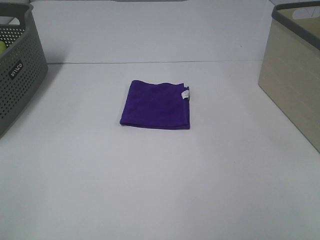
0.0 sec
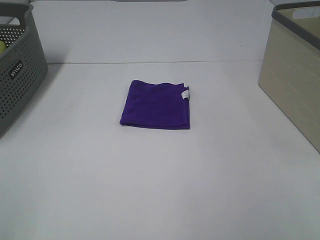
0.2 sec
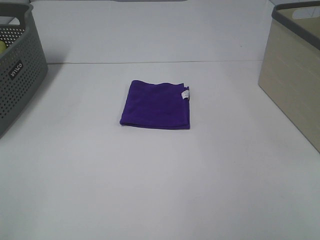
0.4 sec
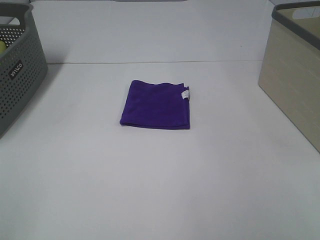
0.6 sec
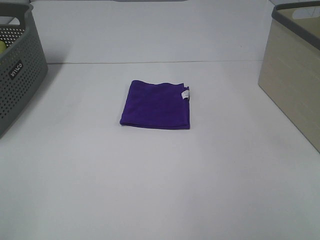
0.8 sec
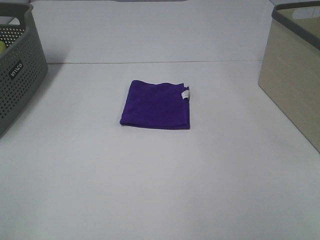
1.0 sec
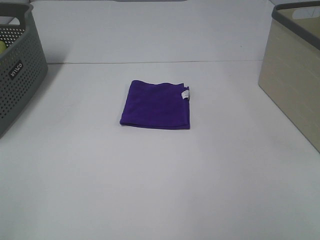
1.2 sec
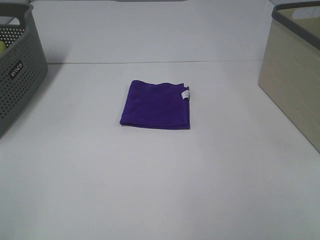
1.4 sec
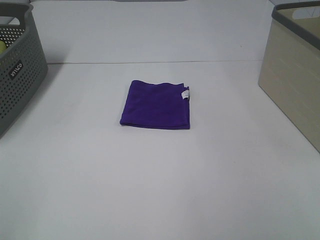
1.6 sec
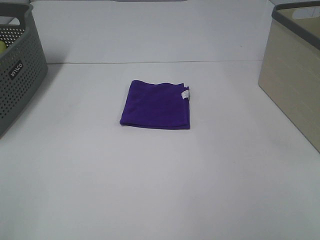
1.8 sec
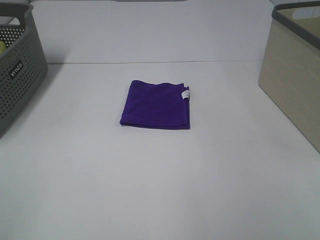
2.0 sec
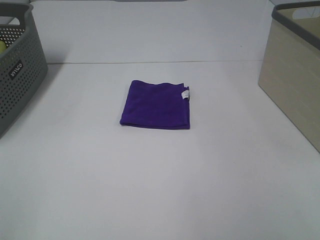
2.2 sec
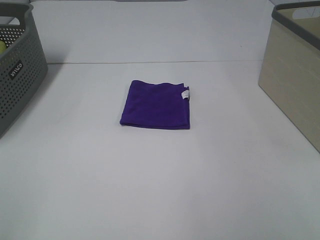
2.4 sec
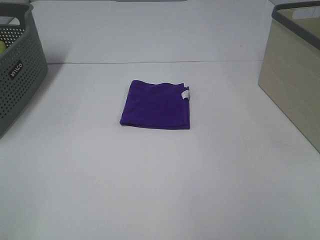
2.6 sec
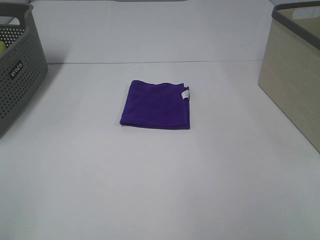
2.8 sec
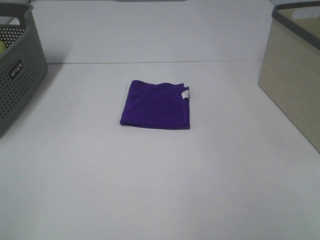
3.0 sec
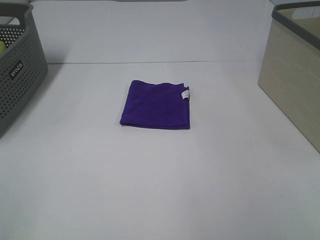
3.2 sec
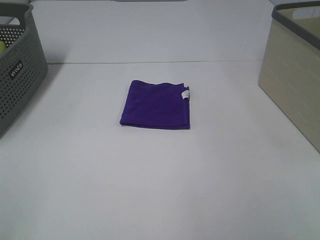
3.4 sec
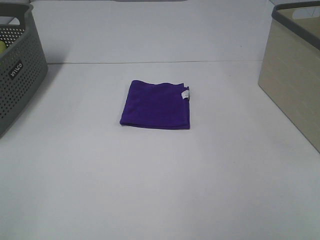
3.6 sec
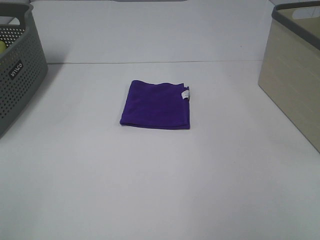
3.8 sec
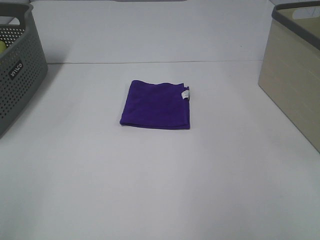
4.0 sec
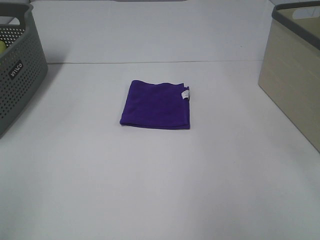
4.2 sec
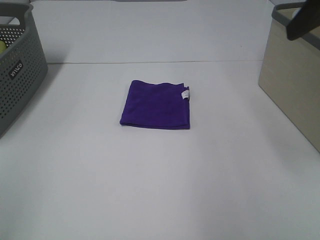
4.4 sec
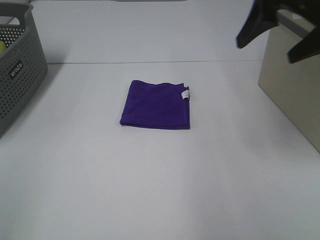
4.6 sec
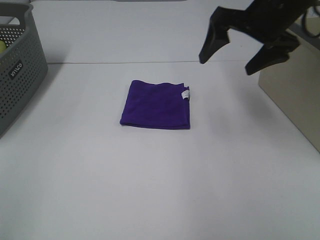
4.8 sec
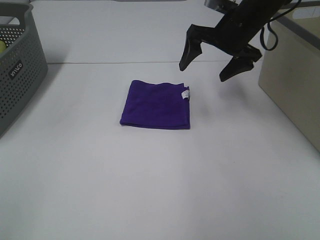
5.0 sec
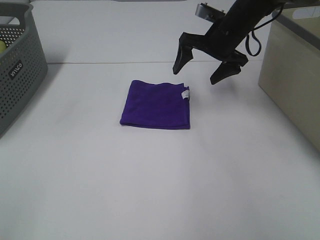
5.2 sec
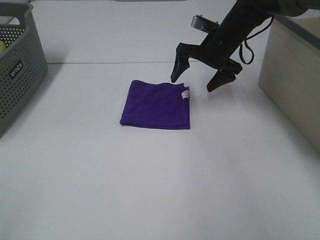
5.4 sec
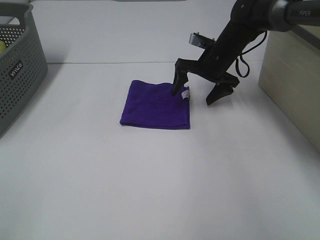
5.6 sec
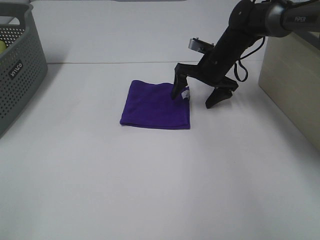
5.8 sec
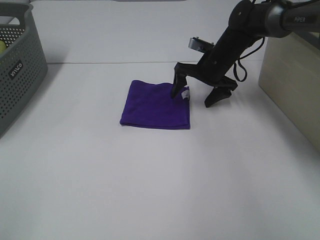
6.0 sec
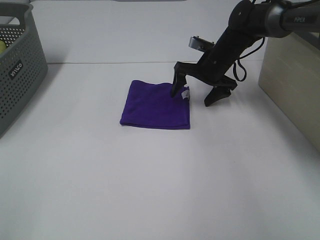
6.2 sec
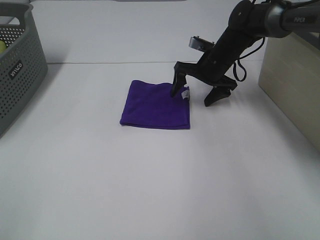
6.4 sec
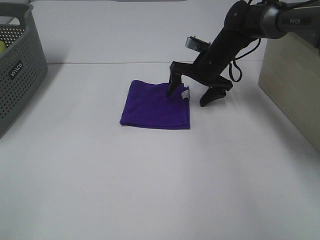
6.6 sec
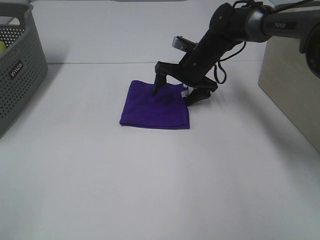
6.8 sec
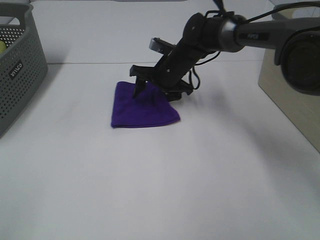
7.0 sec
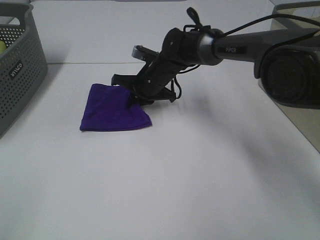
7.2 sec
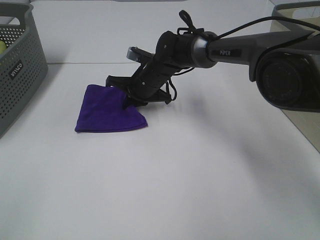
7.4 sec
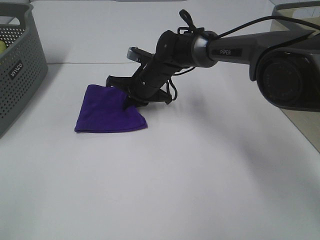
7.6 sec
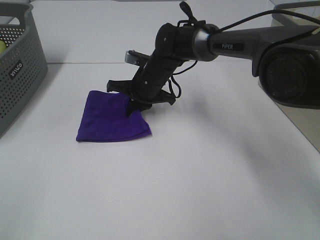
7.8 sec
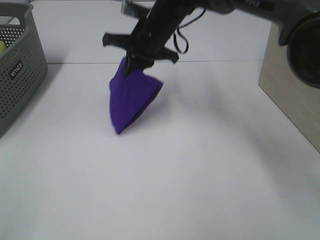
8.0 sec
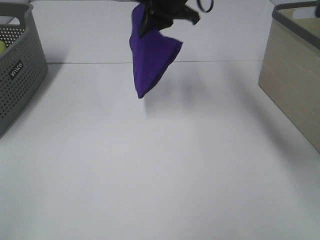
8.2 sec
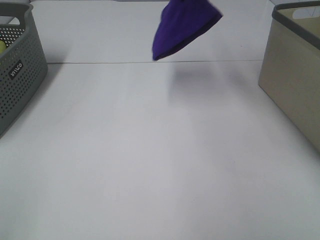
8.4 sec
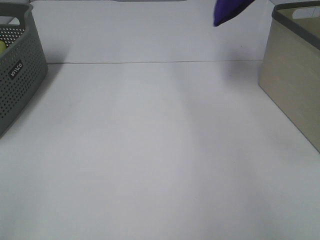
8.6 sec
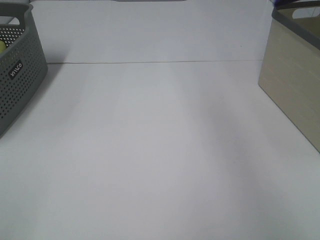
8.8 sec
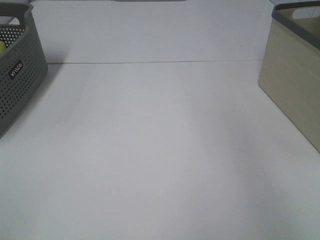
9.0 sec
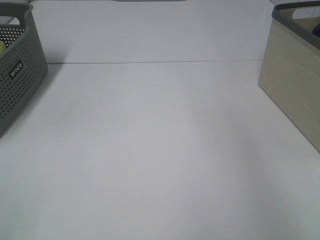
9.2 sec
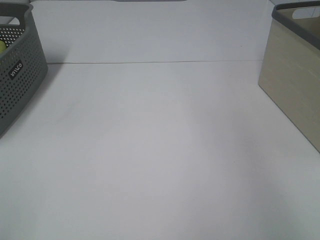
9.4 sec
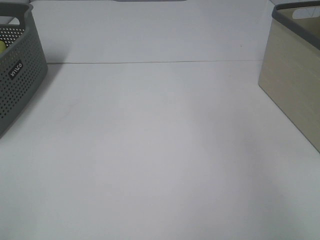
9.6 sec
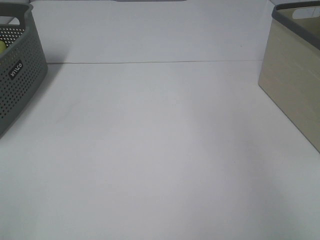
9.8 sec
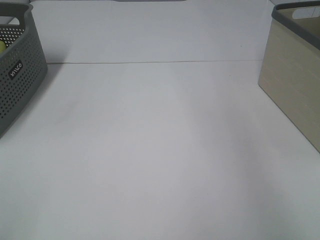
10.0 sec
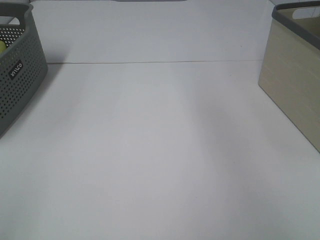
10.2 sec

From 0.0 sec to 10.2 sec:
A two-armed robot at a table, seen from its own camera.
Step, from 0.0 sec to 7.2 sec: Right hand: grab the folded purple towel.
Step, from 7.4 sec to 9.6 sec: Right hand: place the purple towel in right basket.
From 0.0 sec to 3.0 sec: Both grippers stay put.
From 3.0 sec to 4.4 sec: The right gripper goes some 25 cm forward.
From 4.4 sec to 5.8 sec: The right gripper travels downward, forward and to the left by approximately 35 cm.
From 5.8 sec to 7.2 sec: The right gripper shifts roughly 15 cm to the left, and closes up.
From 7.2 sec to 8.8 sec: The right gripper travels upward and to the right by roughly 50 cm.

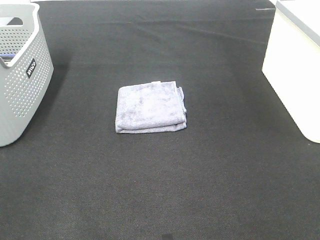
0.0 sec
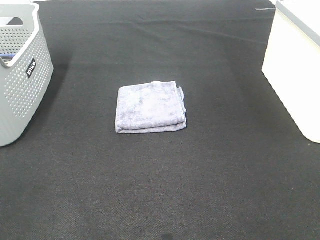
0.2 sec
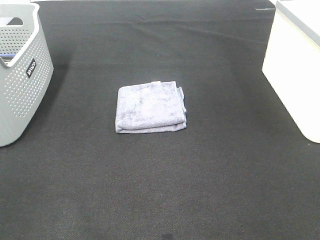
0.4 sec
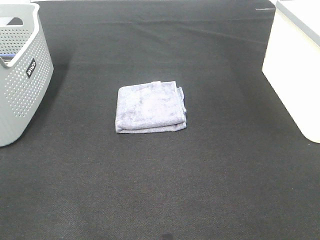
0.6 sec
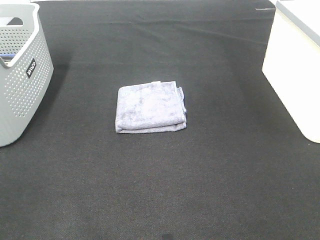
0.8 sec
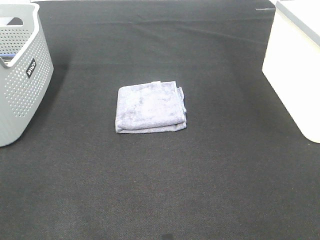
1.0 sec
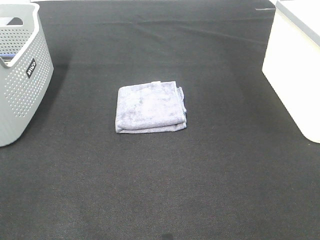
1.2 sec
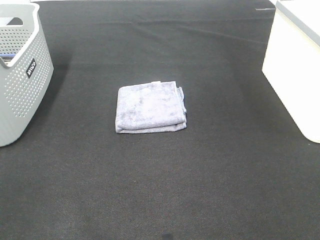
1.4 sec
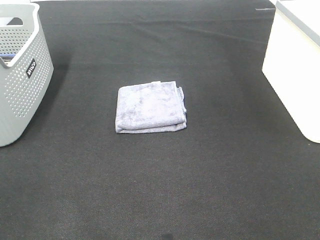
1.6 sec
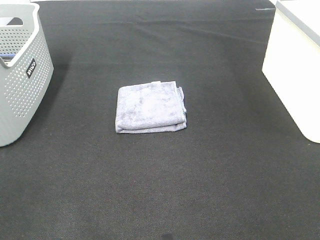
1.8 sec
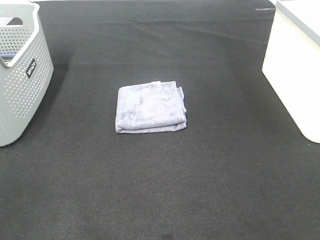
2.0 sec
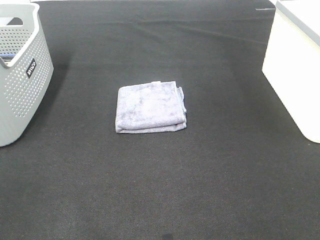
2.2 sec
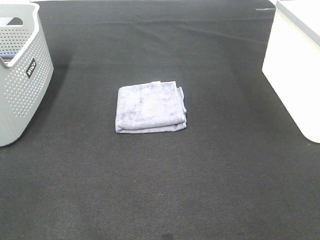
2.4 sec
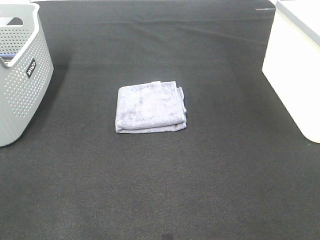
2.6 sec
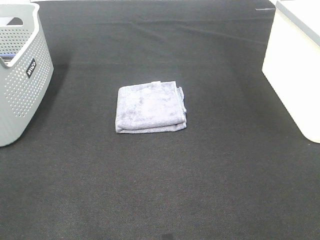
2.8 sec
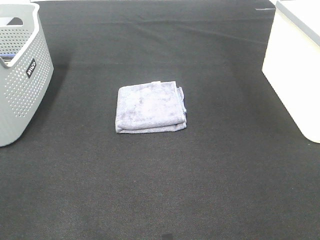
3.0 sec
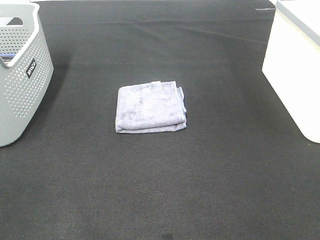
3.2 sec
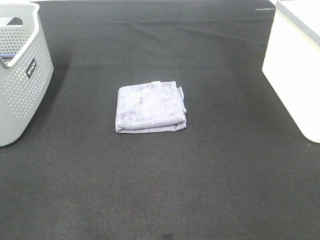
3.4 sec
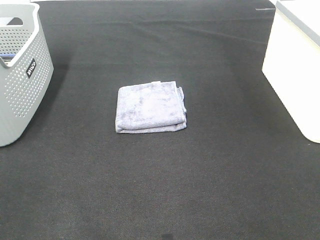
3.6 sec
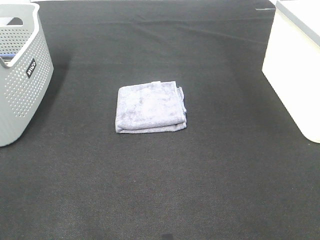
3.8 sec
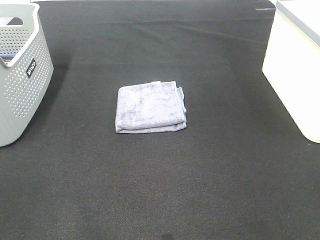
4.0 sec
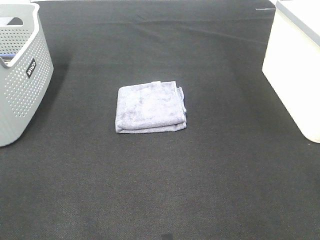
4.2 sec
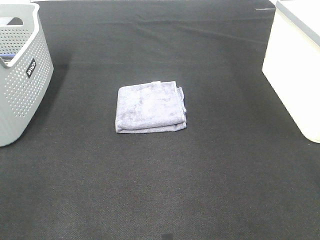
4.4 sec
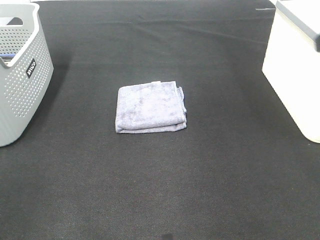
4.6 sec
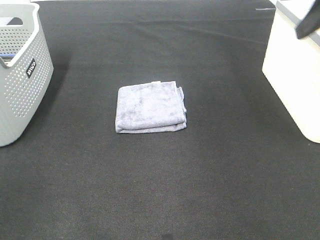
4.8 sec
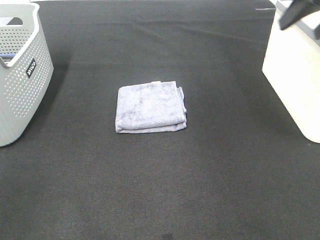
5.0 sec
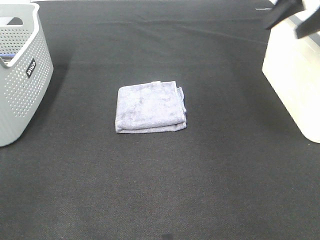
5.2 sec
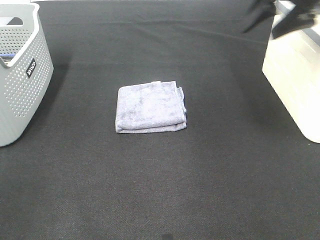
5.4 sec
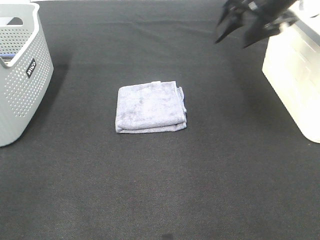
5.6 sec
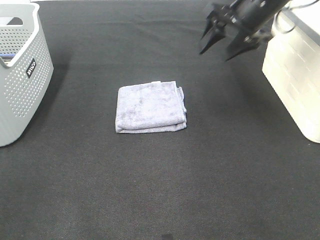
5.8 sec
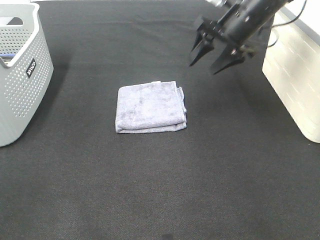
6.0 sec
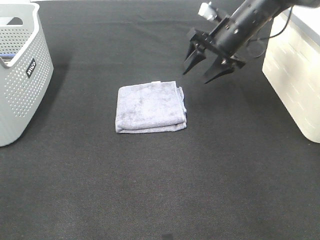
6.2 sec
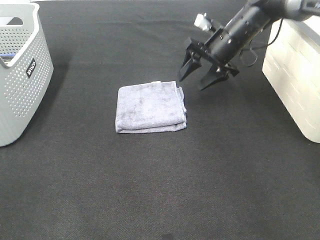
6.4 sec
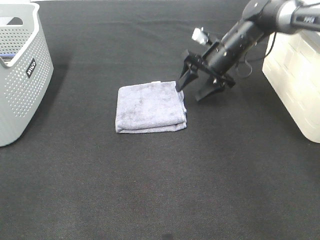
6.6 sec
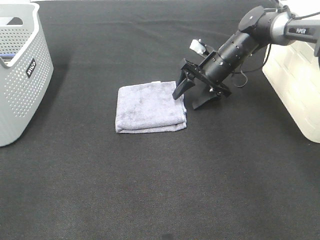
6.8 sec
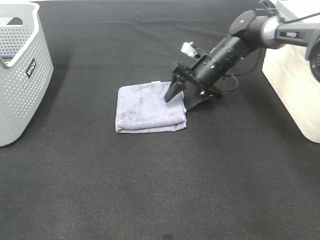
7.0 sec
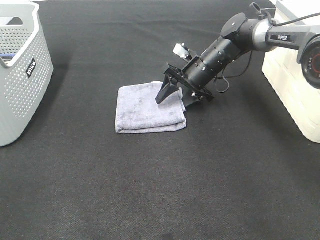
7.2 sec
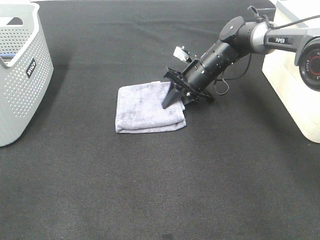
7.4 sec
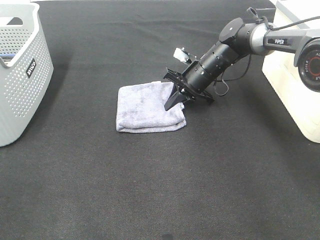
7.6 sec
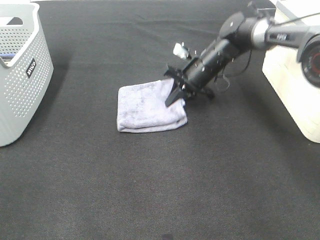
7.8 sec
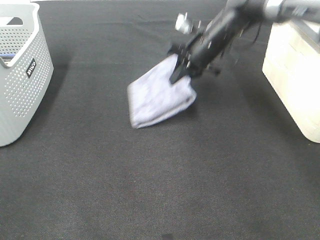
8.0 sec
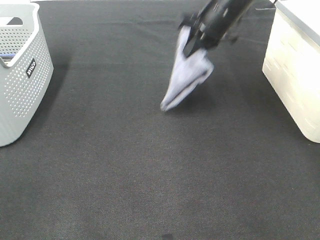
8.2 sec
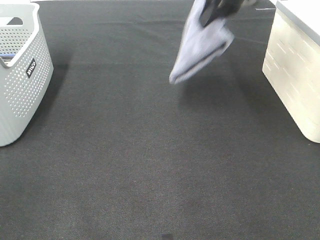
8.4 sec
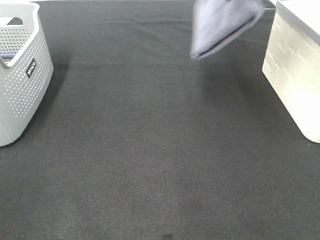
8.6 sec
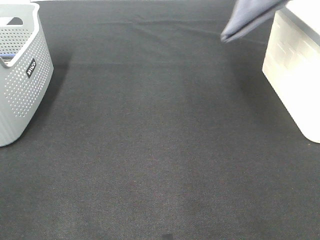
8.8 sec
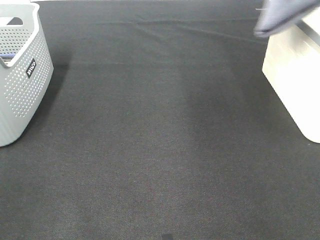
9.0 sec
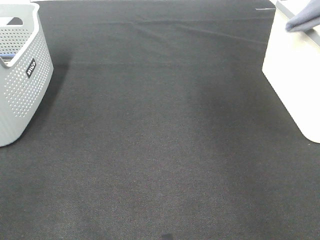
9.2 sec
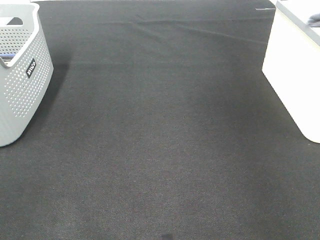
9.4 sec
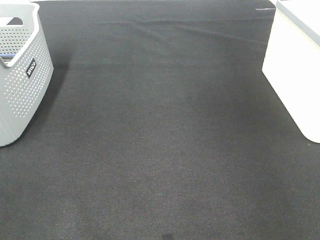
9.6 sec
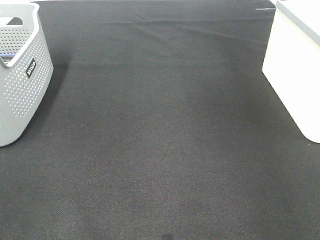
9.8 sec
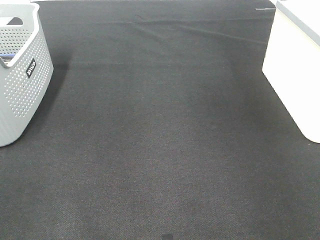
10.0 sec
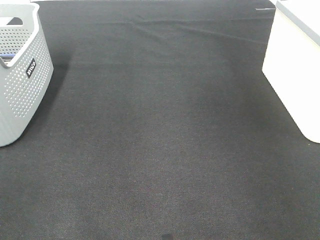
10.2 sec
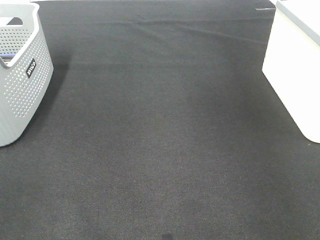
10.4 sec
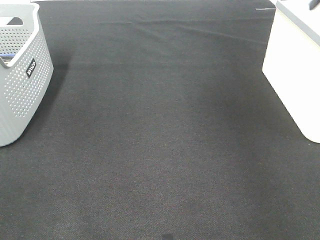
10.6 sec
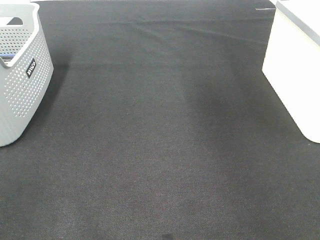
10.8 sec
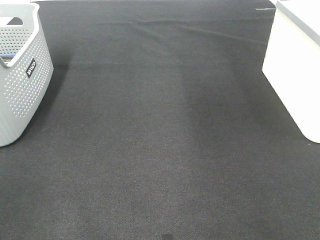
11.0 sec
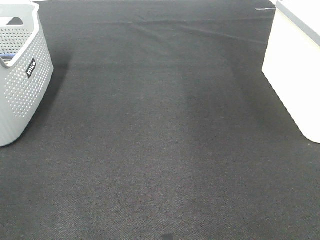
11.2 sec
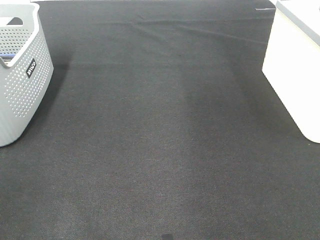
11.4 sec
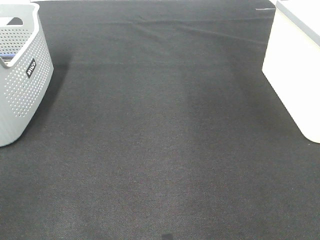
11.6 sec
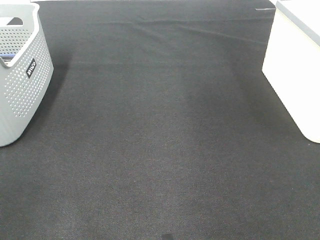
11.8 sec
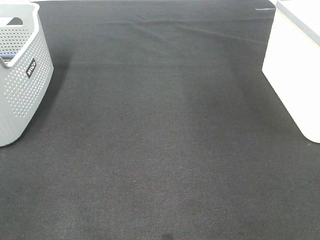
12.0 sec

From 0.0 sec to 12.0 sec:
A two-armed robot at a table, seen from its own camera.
Step, from 0.0 sec to 7.6 sec: Right hand: grab the folded grey towel.
Step, from 7.8 sec to 10.2 sec: Right hand: place the grey towel in right basket.
From 0.0 sec to 3.0 sec: Both grippers stay put.
From 4.4 sec to 6.0 sec: The right gripper travels forward, downward and to the left by some 30 cm.
From 6.0 sec to 7.6 sec: The right gripper shifts approximately 15 cm downward and to the left, and closes.
From 7.6 sec to 9.0 sec: The right gripper is displaced upward and to the right by roughly 40 cm.
From 9.0 sec to 10.4 sec: The right gripper shifts some 15 cm to the right and downward, and opens its fingers.
